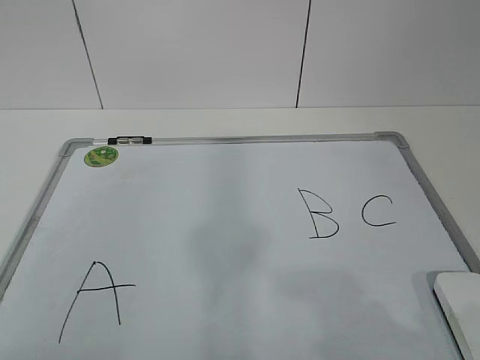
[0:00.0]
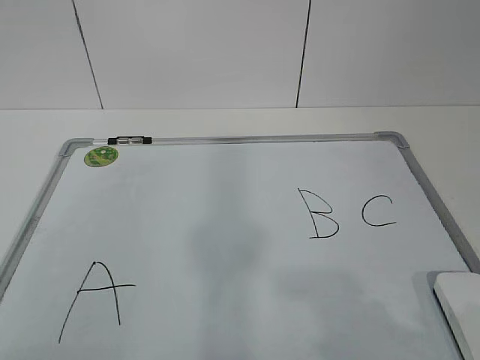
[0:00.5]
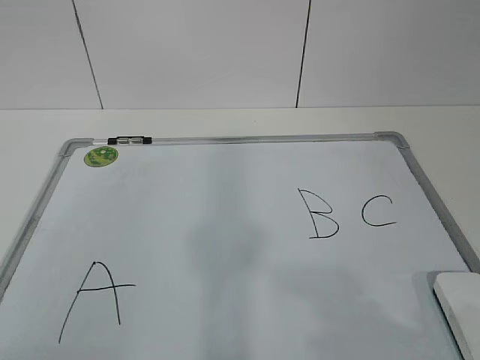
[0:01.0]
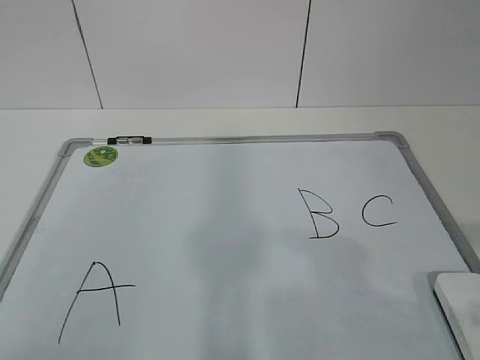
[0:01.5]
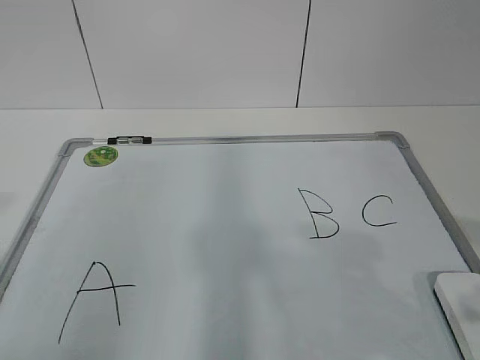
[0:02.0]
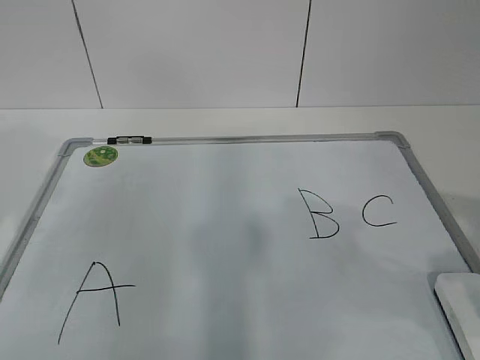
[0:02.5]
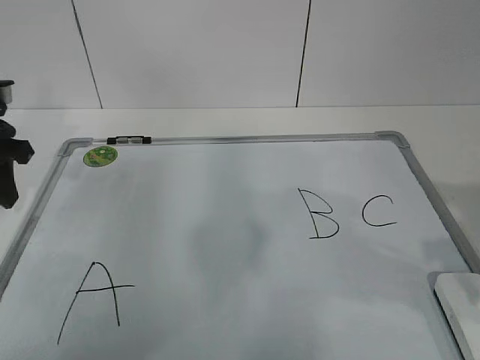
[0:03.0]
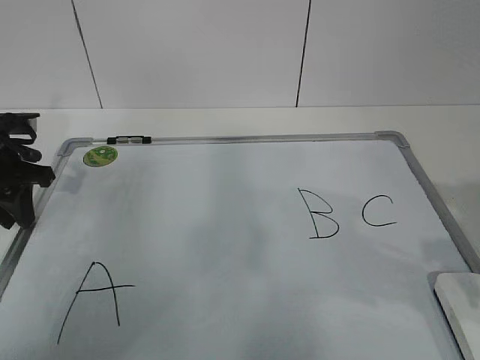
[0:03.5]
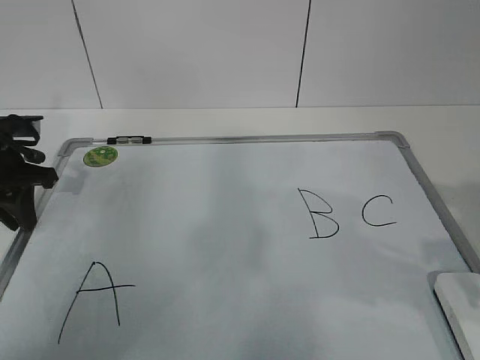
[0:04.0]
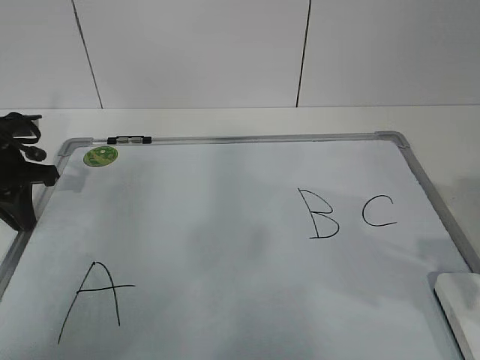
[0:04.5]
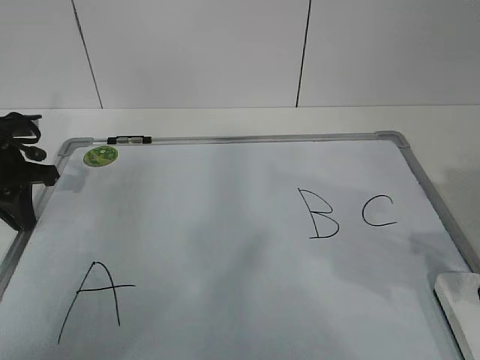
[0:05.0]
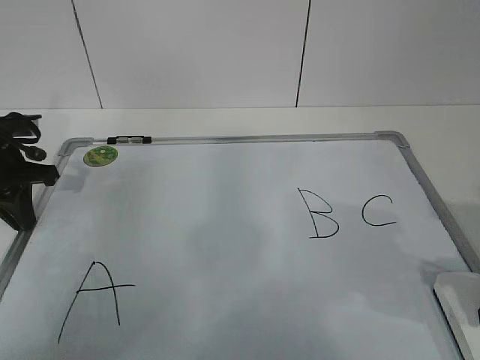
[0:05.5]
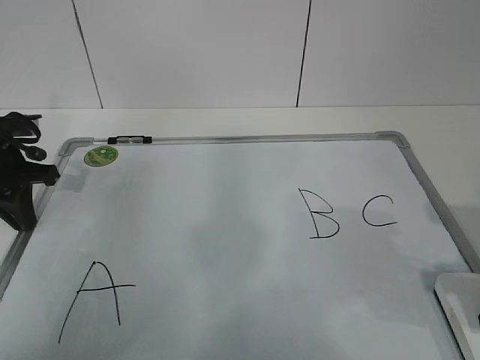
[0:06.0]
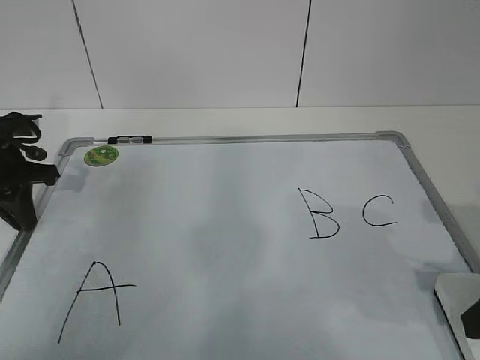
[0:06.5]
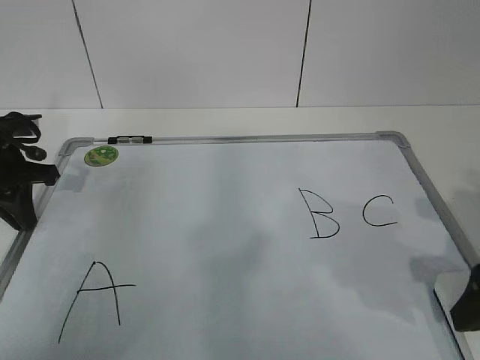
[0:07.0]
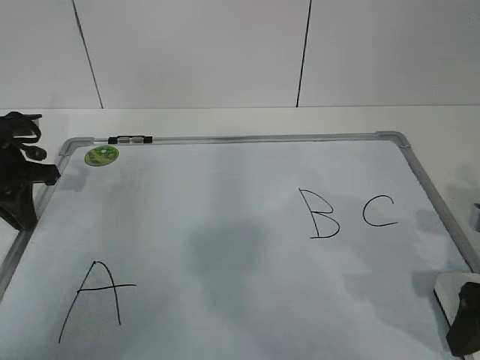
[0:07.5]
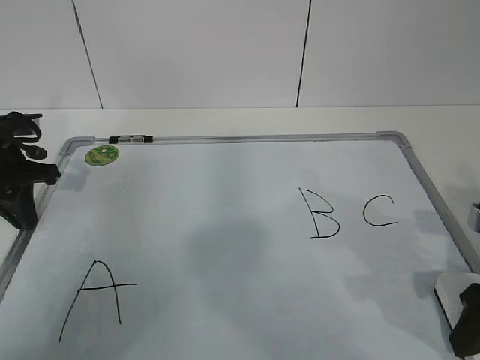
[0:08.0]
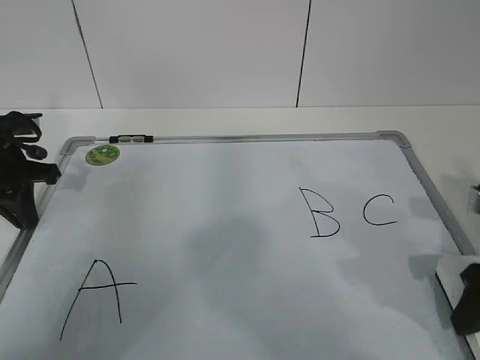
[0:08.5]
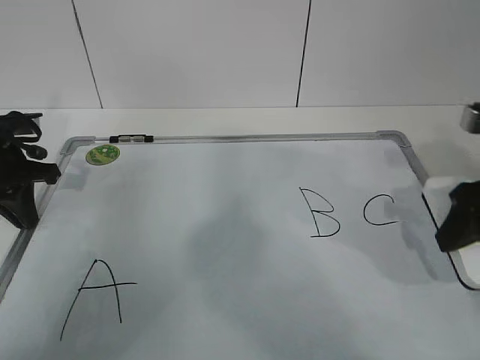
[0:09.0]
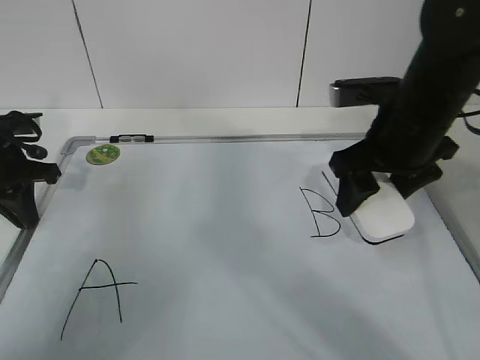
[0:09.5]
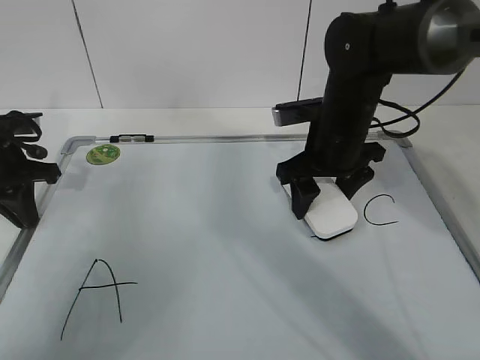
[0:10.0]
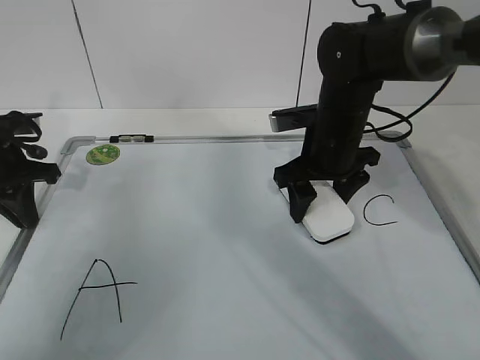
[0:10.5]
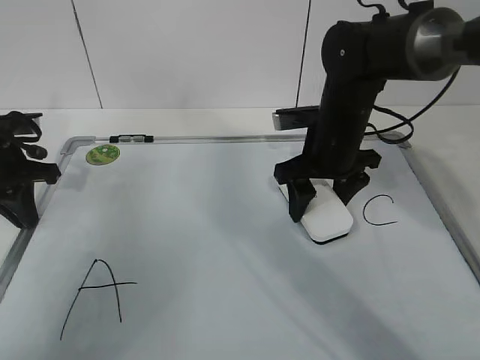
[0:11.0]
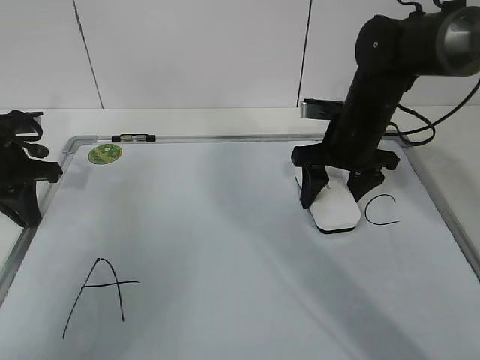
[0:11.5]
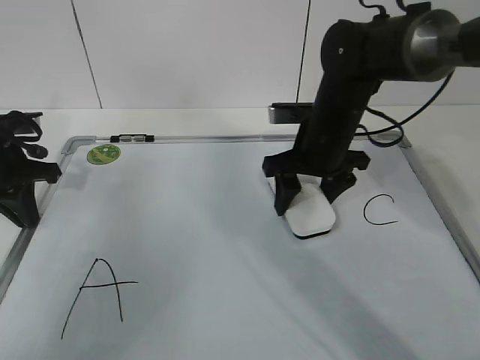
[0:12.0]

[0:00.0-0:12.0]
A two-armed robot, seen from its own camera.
Task of the whole recording: pick up the eraser on the blackboard and erase the letter "B".
Step, 0:00.0 to 0:03.5: Hold the drawing board steady with your left hand.
Step, 0:07.0 to 0:11.5: Erase the letter B with your right hand.
0:02.0 to 0:04.0: The right gripper heads forward, covering some 5 cm. The left gripper goes some 35 cm forward and downward.
0:06.0 to 0:08.0: The right gripper shifts by approximately 5 cm, and opens, then closes once more.
0:08.0 to 0:10.0: The right gripper is displaced forward and to the left by some 25 cm.
0:10.0 to 0:12.0: The grippers make only small movements.

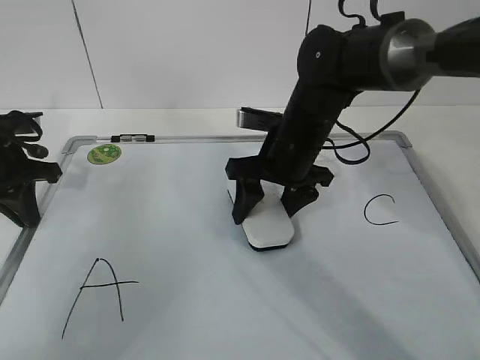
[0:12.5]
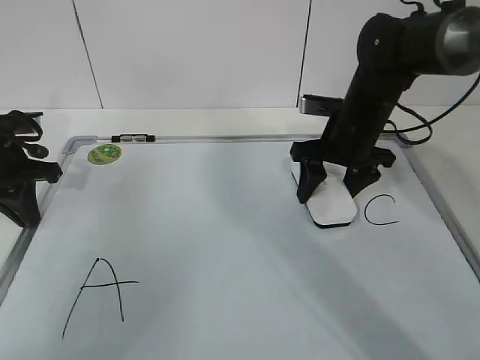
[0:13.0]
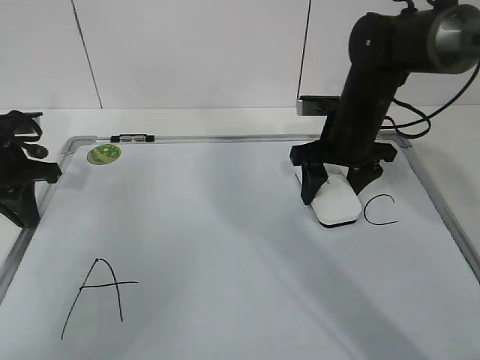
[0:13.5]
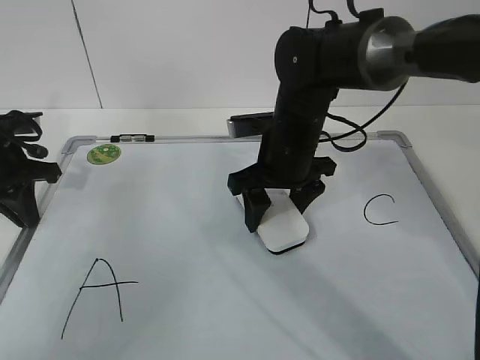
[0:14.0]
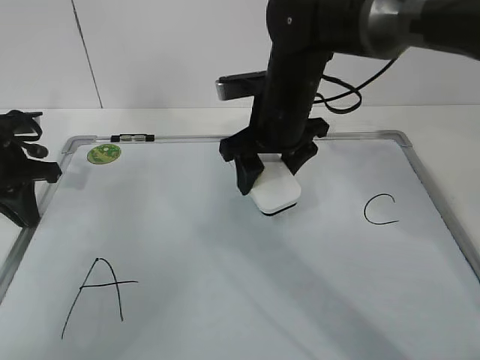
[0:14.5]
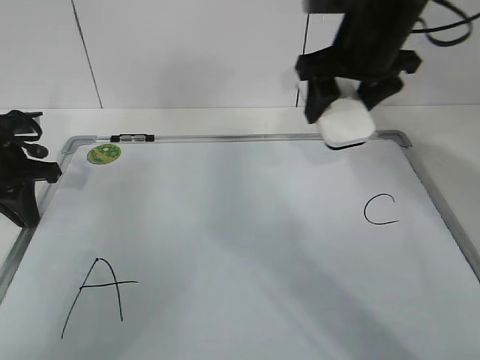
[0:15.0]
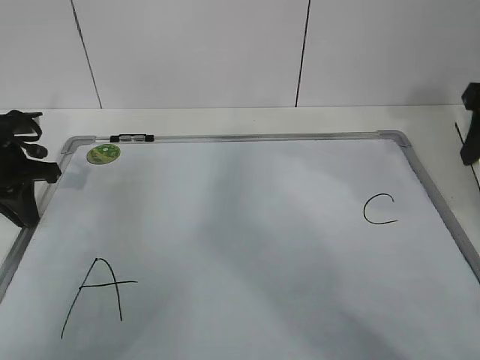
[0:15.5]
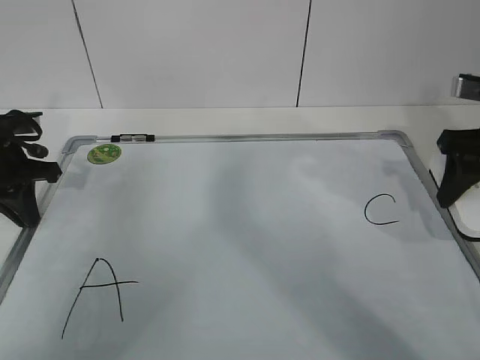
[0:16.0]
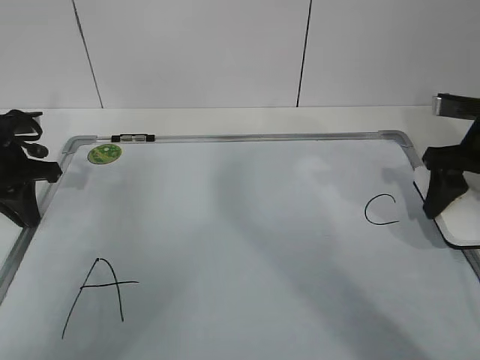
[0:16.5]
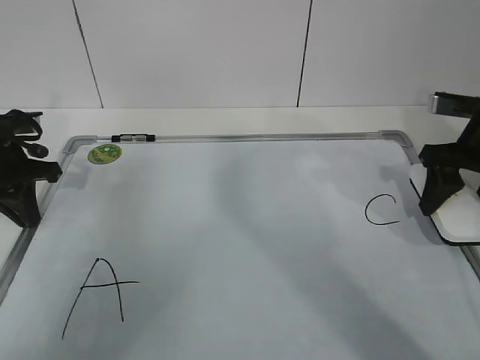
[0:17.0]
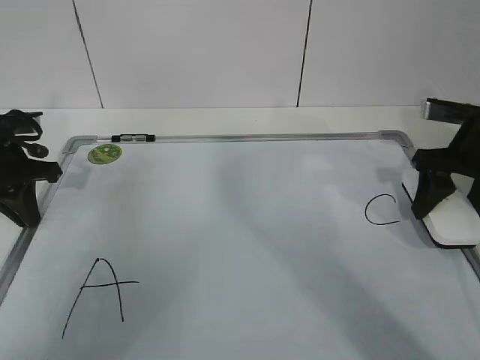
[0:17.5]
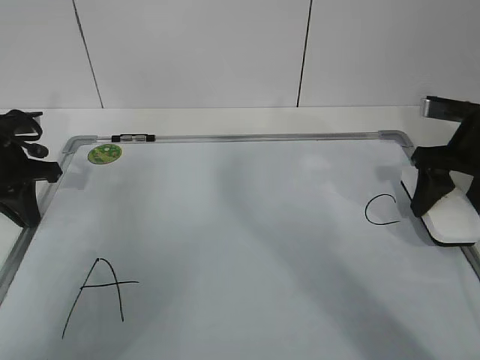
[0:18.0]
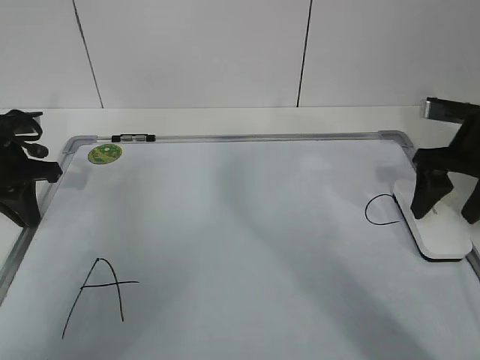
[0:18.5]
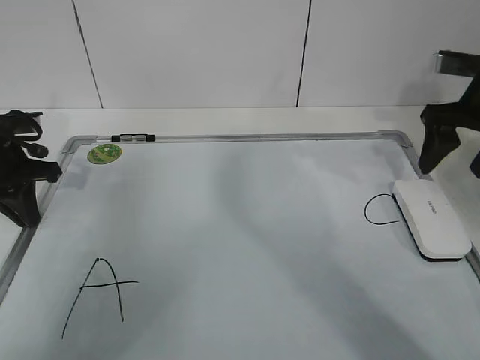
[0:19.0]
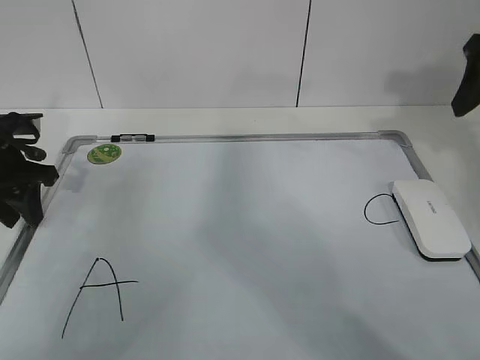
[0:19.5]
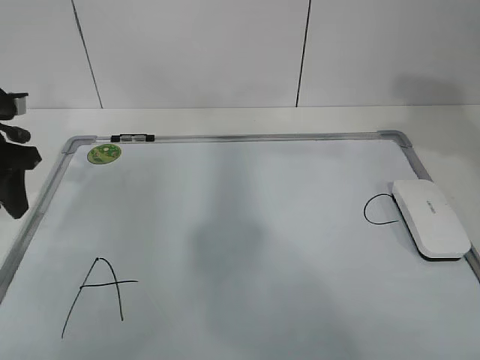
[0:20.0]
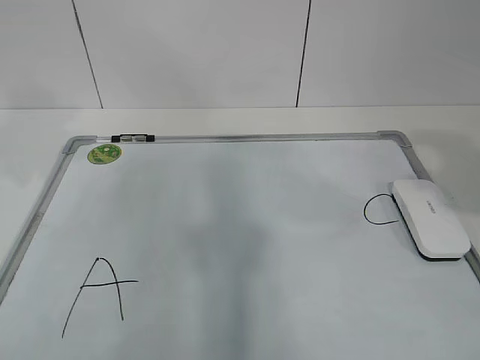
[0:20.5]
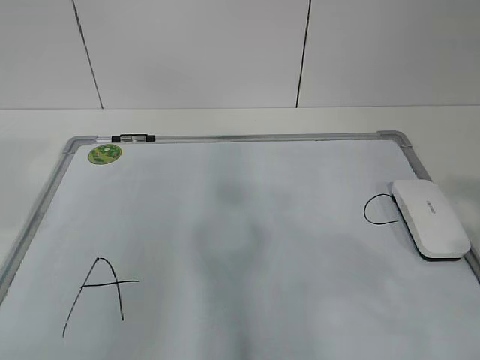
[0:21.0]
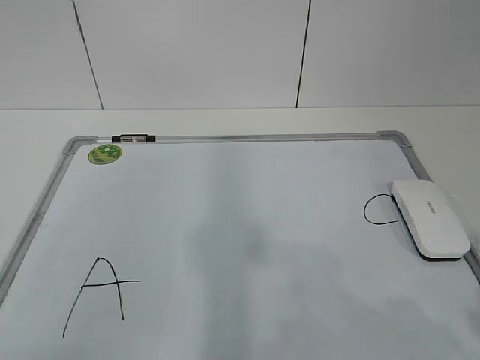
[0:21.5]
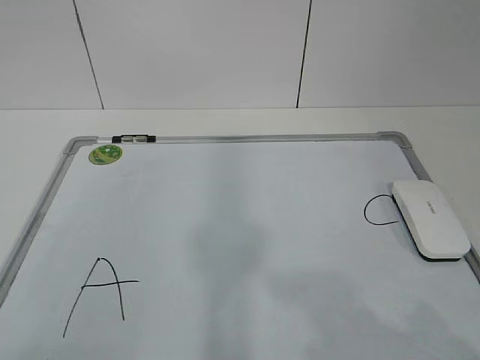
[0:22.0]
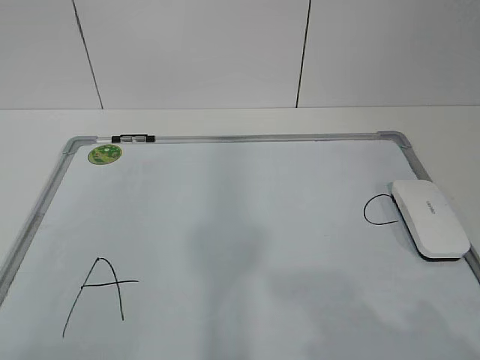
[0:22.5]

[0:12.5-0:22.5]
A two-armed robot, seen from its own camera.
Task of the whole recording: pick up the eraser on the blackboard and erase the letter "B".
Step, 0:12.5 to 0:15.0: Put down the eraser with your right hand.
0:12.5 to 0:14.5: The right gripper travels to the right and back again, roughly 10 cm each way.
0:14.5 to 0:16.5: The right gripper heads to the right, covering about 25 cm.
0:16.5 to 0:18.5: The right gripper opens.
0:18.5 to 0:20.5: The left gripper goes about 20 cm upward and backward, and opens its fingers; the right gripper travels backward and upward by roughly 25 cm, and closes up.
0:20.5 to 0:22.5: The right gripper shifts roughly 20 cm backward and downward.

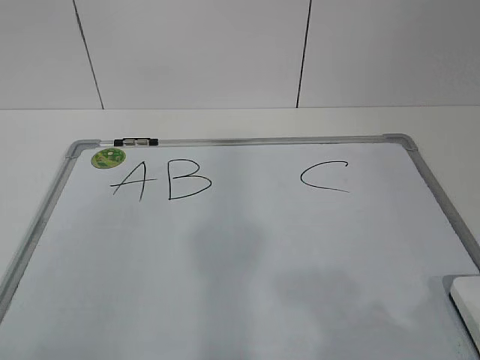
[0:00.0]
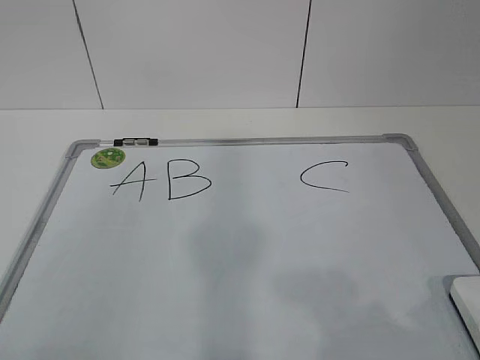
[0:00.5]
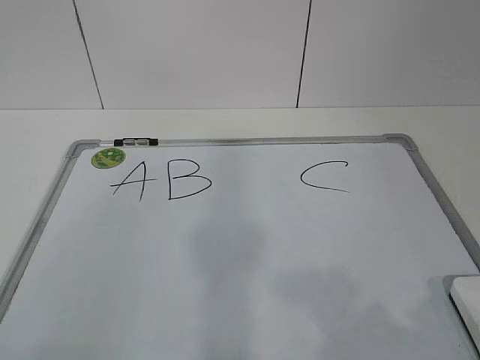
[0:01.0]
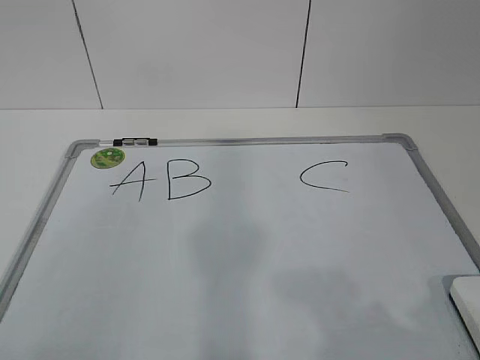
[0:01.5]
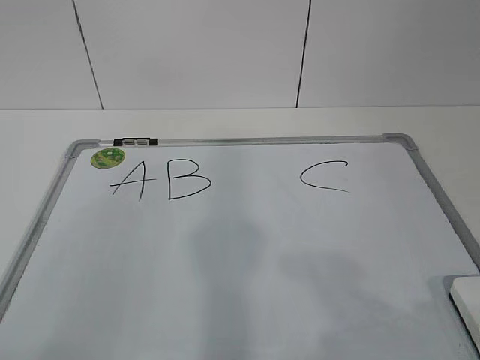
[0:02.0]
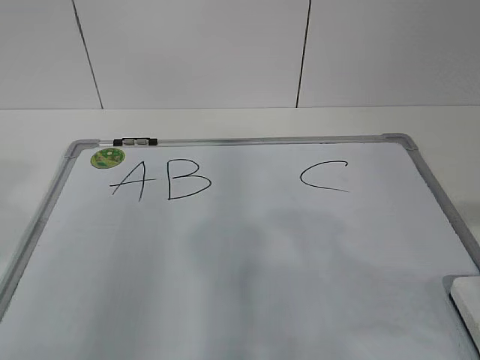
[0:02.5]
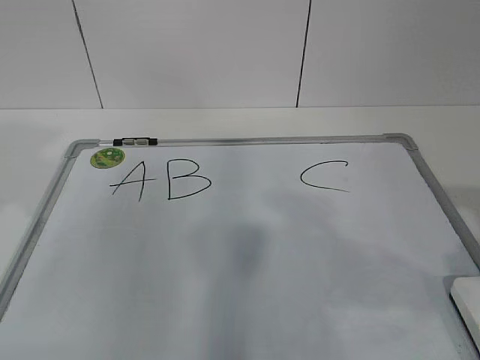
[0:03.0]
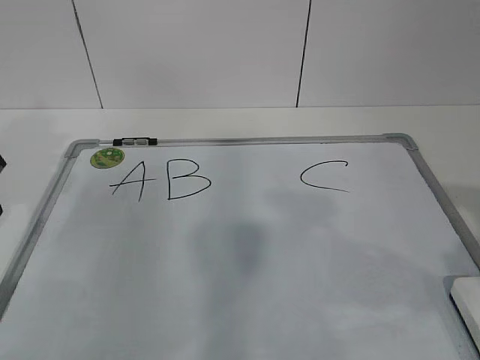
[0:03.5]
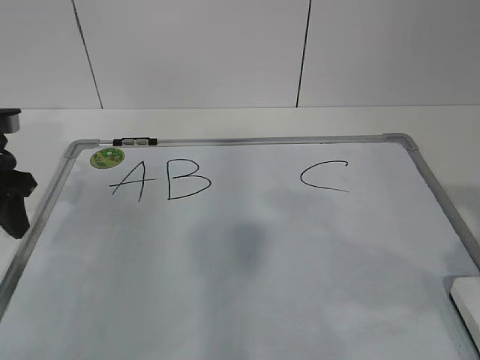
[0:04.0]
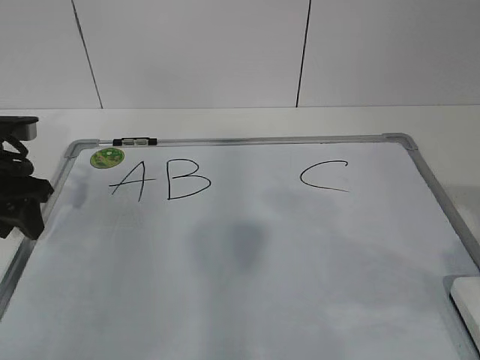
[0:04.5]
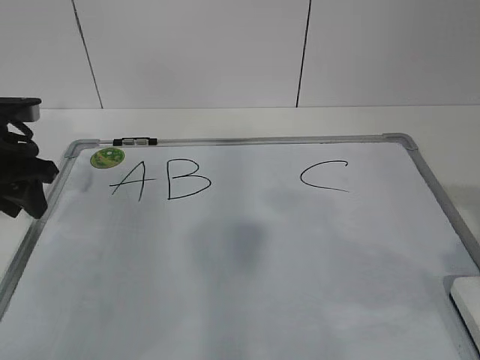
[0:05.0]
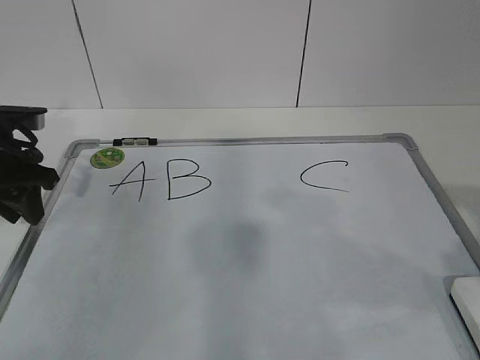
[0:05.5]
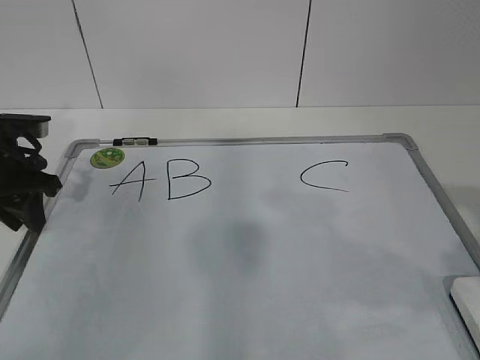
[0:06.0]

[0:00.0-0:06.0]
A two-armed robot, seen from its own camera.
Task of the whole recording: pick up the eraser on the blackboard and erase the letter "B".
Step, 0:00.0 to 0:05.5: Hold the drawing board steady with your left hand.
0:02.0 to 0:04.0: The left gripper travels forward by approximately 30 cm, while the right gripper goes about 10 cm forward.
0:04.0 to 0:06.0: The left gripper moves approximately 5 cm.
